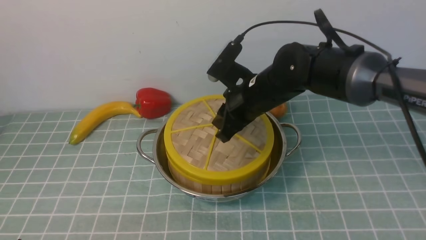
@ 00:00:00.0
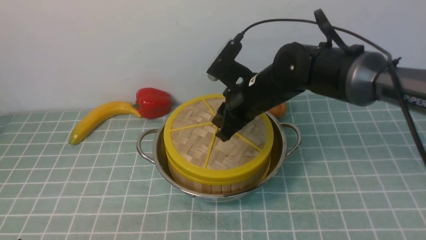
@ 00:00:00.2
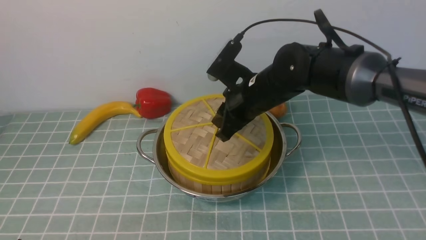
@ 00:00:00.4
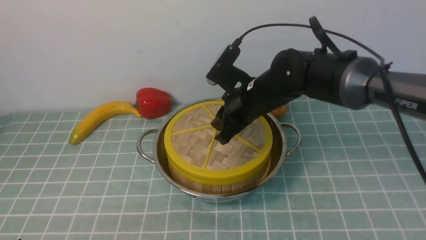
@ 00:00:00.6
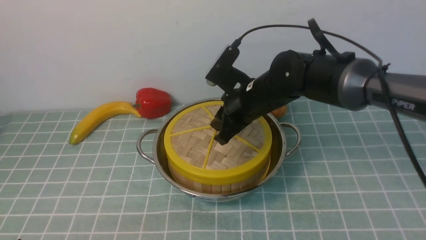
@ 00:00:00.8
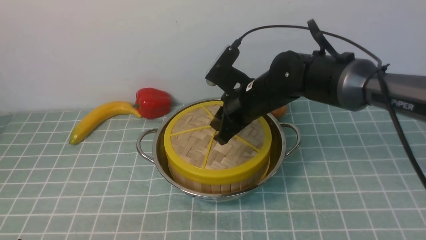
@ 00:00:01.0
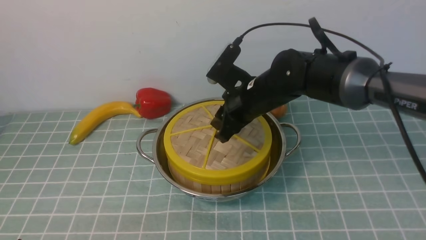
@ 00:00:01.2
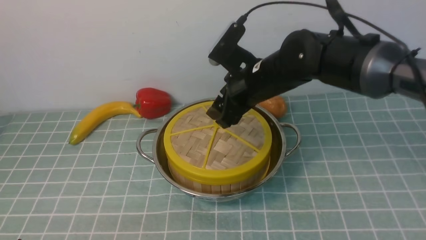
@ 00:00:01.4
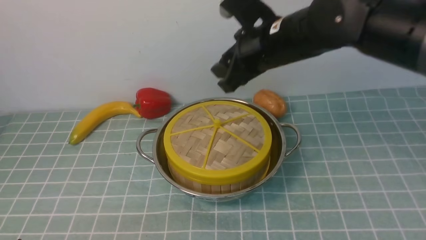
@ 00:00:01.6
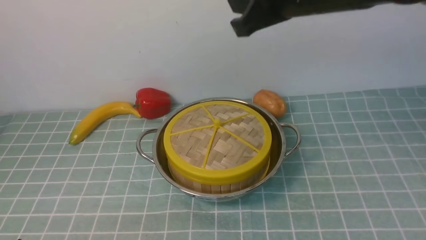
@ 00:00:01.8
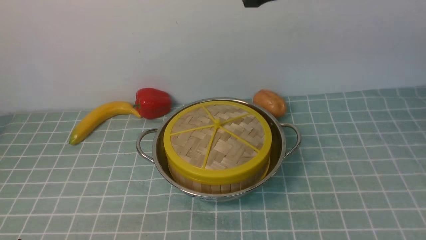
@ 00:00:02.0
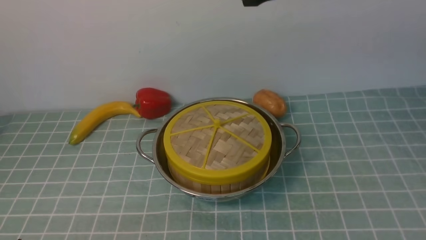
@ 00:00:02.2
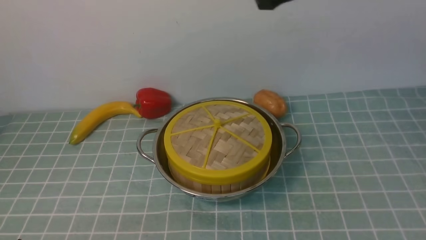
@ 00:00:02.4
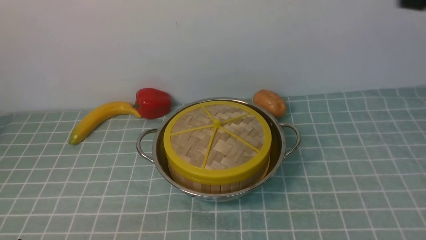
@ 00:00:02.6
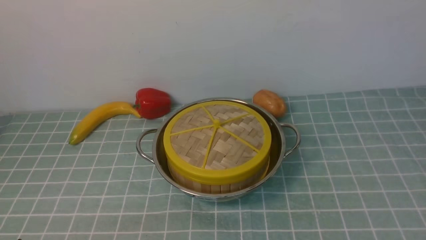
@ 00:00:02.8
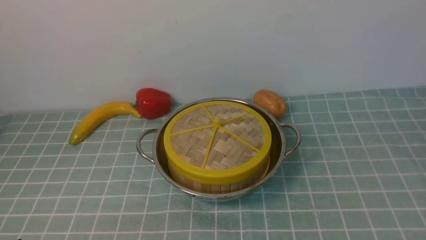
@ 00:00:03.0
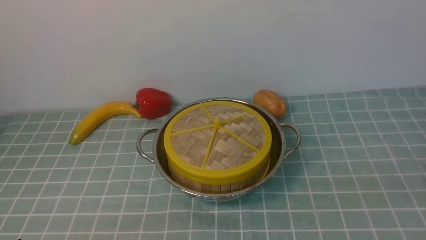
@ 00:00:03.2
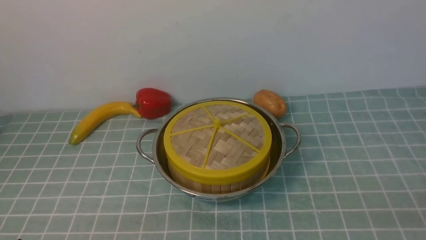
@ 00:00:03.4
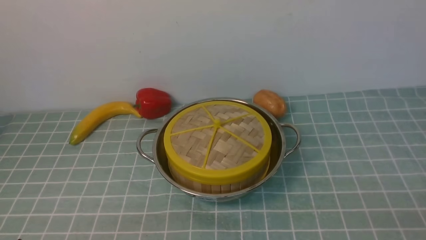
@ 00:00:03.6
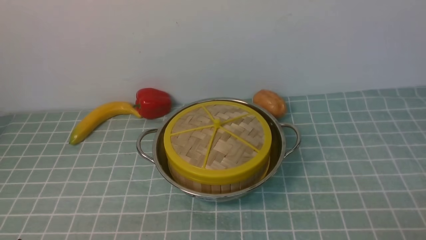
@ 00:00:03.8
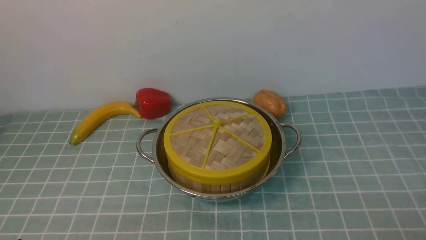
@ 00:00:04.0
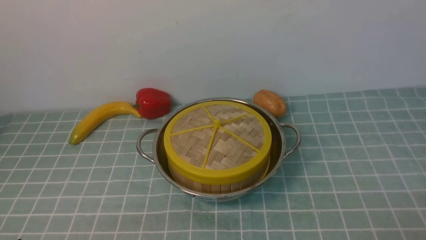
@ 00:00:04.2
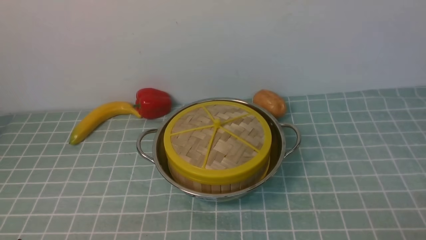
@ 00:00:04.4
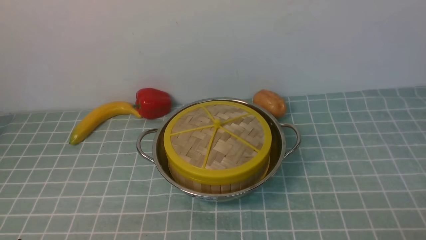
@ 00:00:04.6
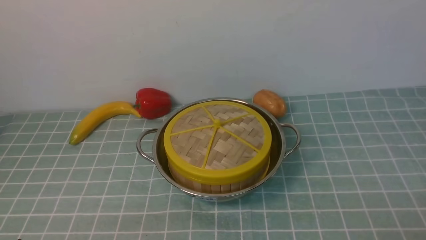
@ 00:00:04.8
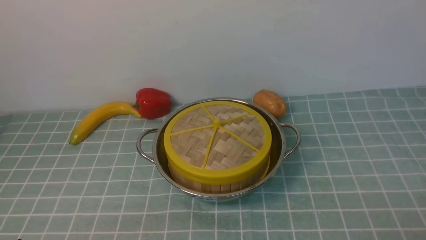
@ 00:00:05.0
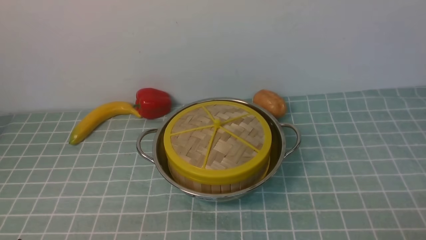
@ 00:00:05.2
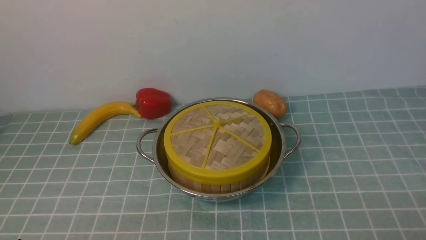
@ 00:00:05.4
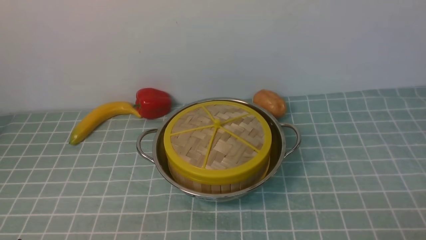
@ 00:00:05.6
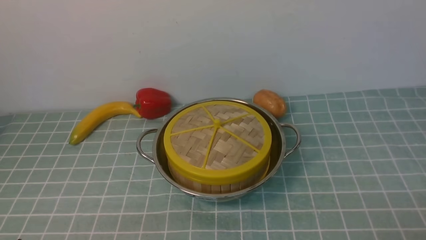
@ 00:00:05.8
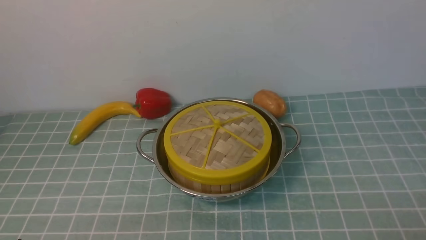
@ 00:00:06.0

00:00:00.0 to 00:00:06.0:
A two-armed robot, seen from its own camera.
Task of the whole recording: place the steamer in the pot on the blue tablecloth, and put the lid on the steamer.
00:00:00.0 to 00:00:01.6: The right gripper is displaced upward by some 10 cm, and opens up.
00:00:01.6 to 00:00:03.0: The right gripper goes roughly 35 cm backward and to the right, and closes up.
00:00:04.4 to 00:00:06.0: Neither gripper changes place.
